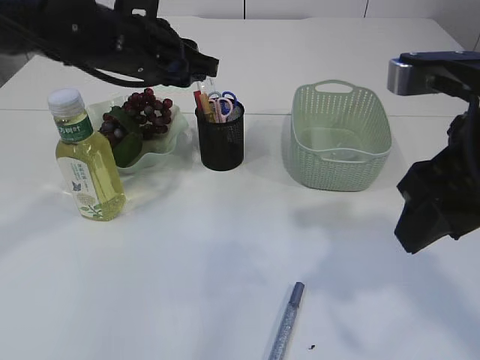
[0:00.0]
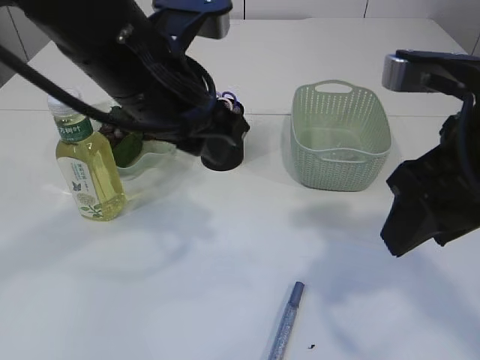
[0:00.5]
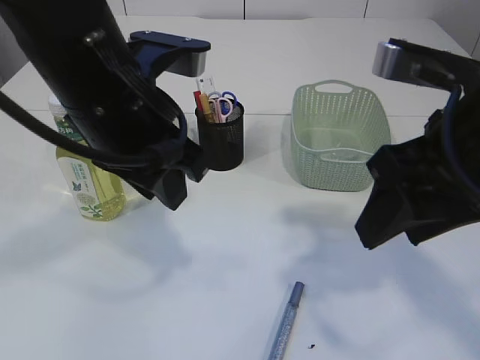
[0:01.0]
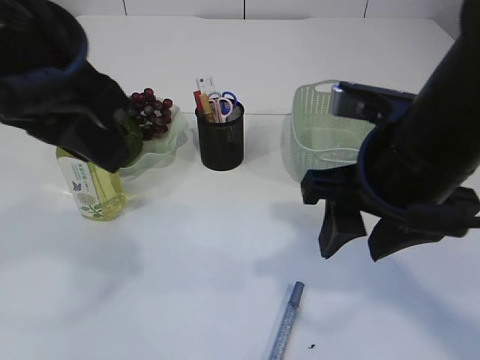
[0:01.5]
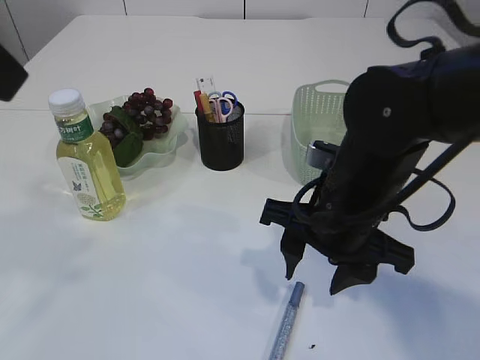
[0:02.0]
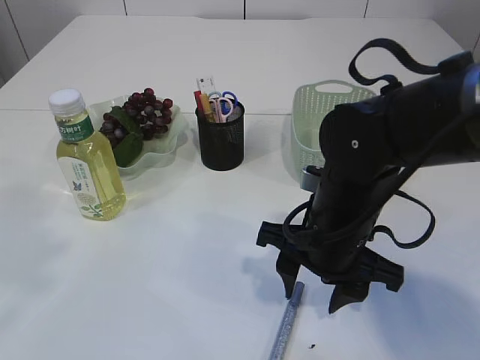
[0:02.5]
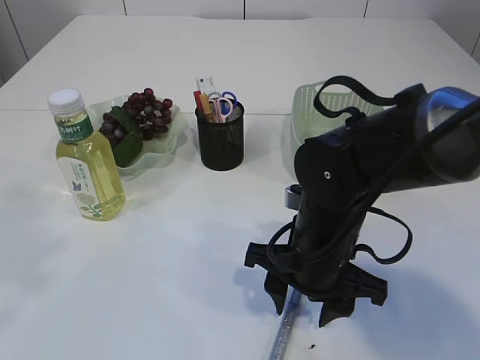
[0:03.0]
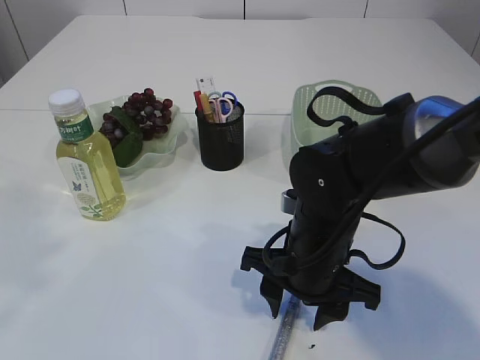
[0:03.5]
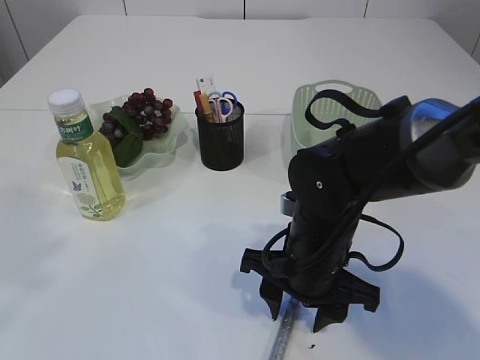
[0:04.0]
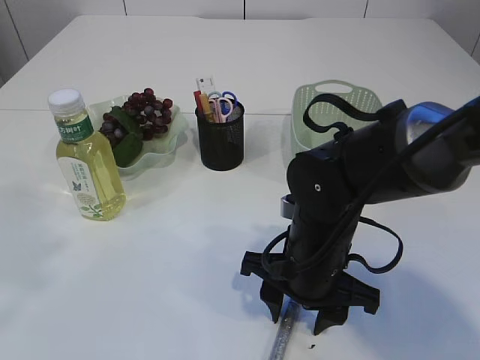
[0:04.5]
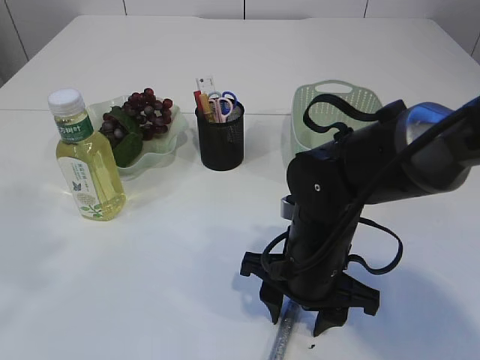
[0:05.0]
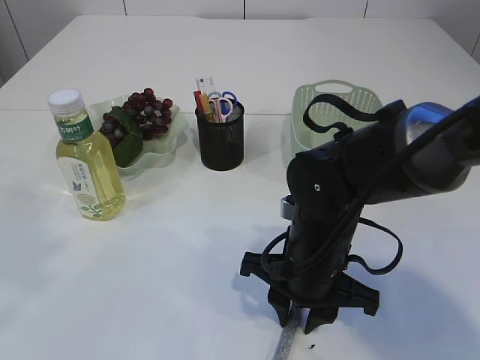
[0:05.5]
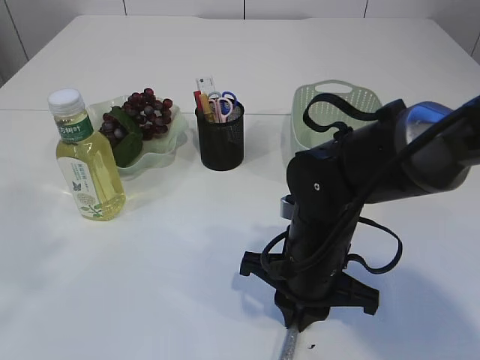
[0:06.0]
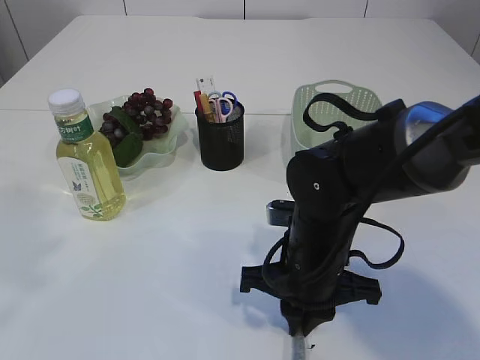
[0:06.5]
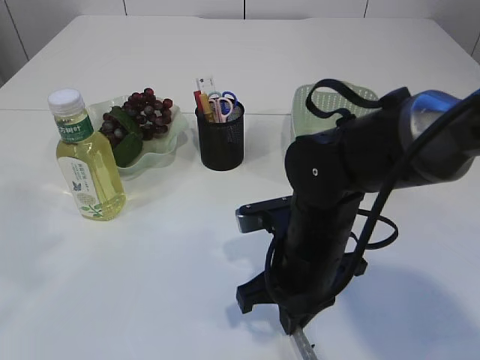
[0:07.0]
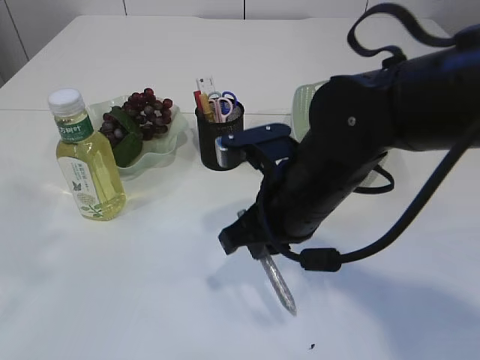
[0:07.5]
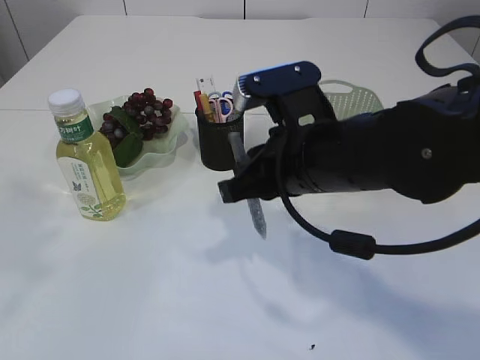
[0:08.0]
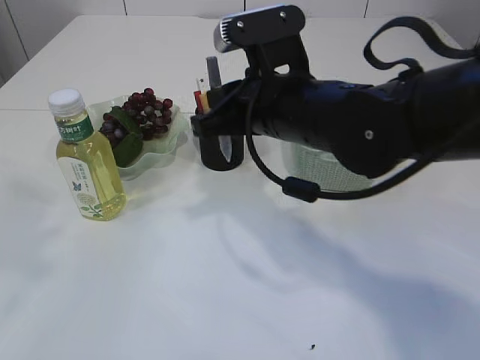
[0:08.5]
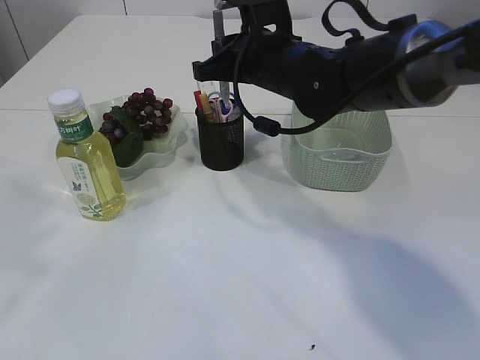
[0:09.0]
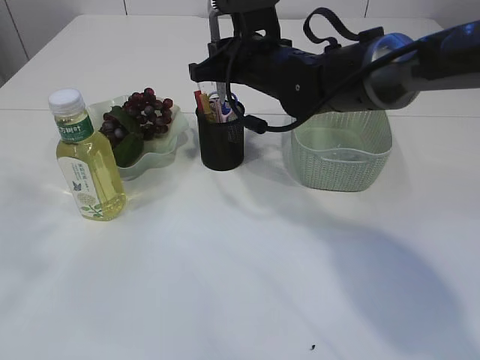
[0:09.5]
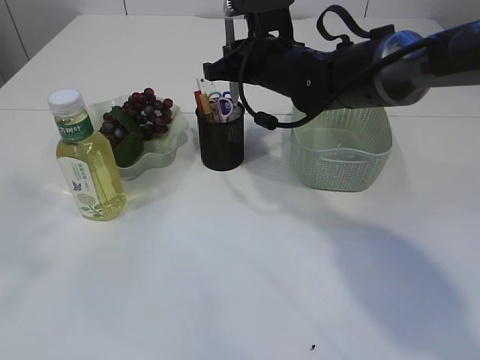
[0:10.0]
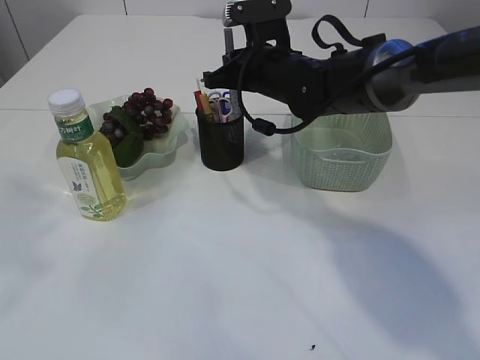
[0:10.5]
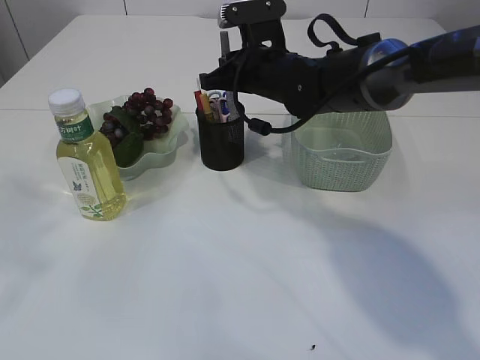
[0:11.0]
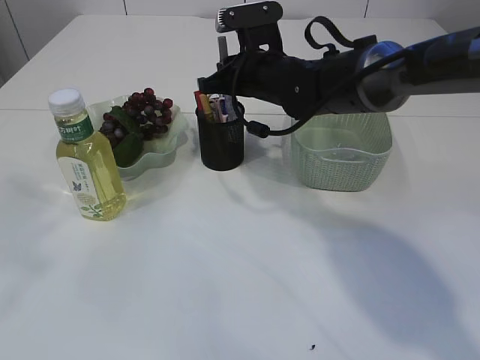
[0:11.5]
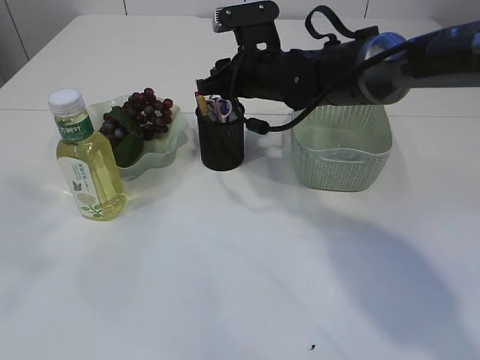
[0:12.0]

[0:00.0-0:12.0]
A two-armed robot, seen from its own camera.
Step, 0:00.5 to 0:07.0: pick up the silver glue.
0:00.0 to 0:02.0: The right gripper goes approximately 15 cm downward, to the left and forward. The left gripper heads backward and upward, covering some 30 cm.
0:02.0 to 0:04.0: The right gripper heads downward, covering about 5 cm.
0:04.0 to 0:06.0: The right gripper closes its fingers.
0:06.0 to 0:08.0: The right gripper goes some 10 cm upward.
0:08.0 to 0:10.0: The right gripper moves forward, about 20 cm.
0:10.0 to 0:12.0: The right gripper opens up.

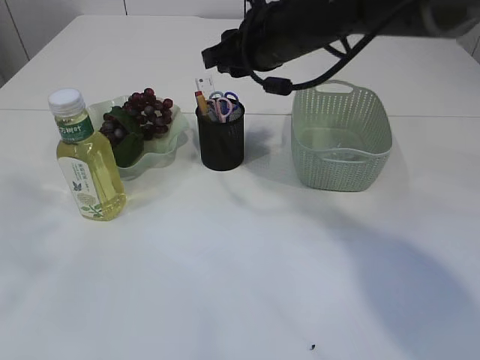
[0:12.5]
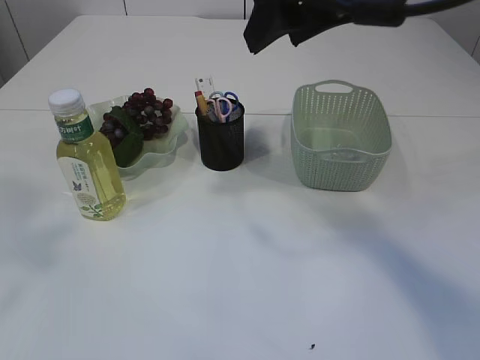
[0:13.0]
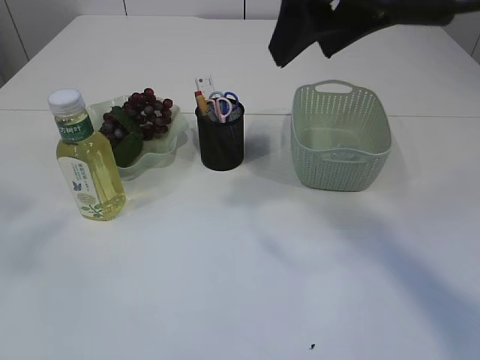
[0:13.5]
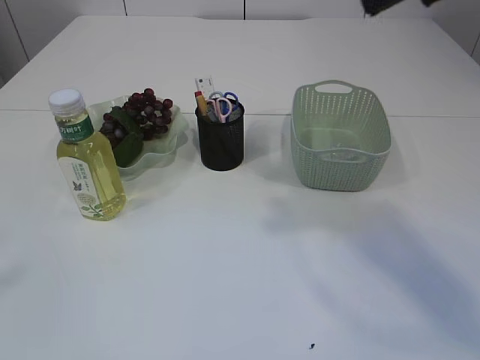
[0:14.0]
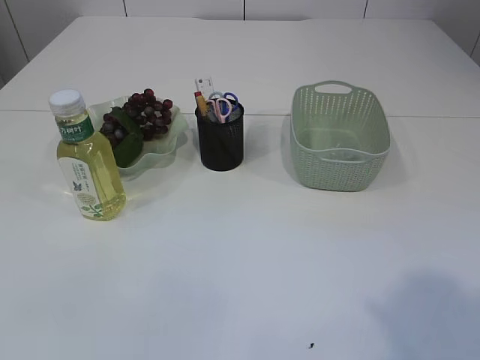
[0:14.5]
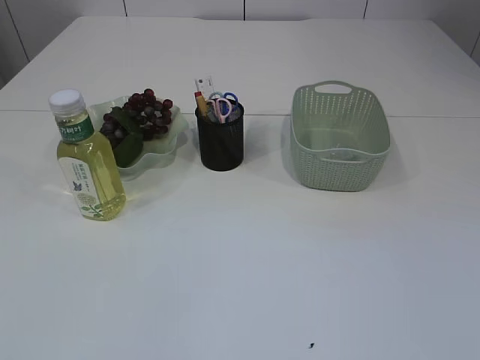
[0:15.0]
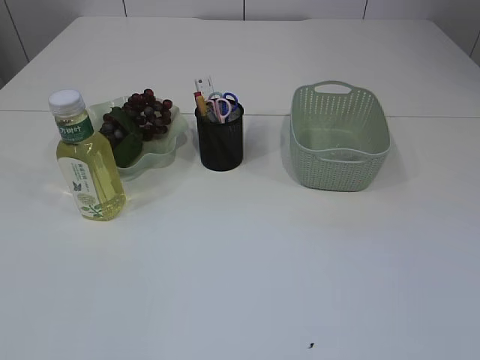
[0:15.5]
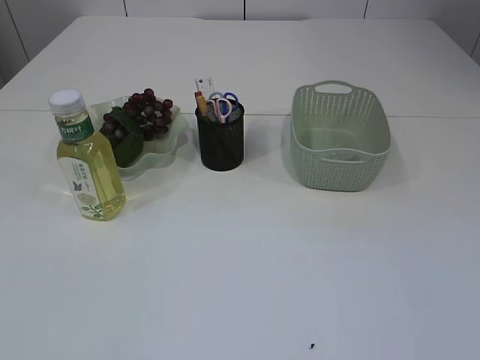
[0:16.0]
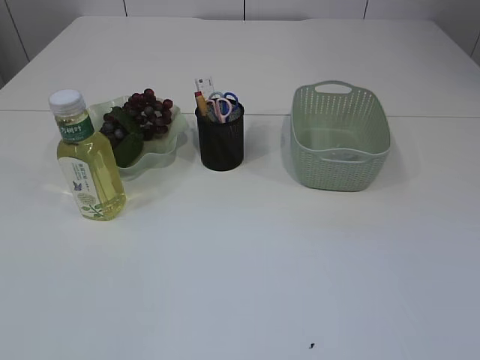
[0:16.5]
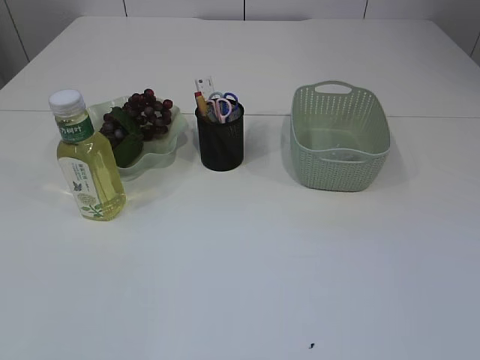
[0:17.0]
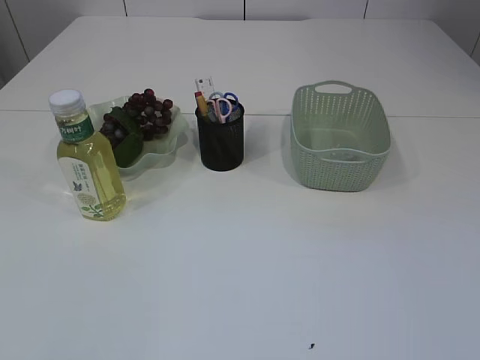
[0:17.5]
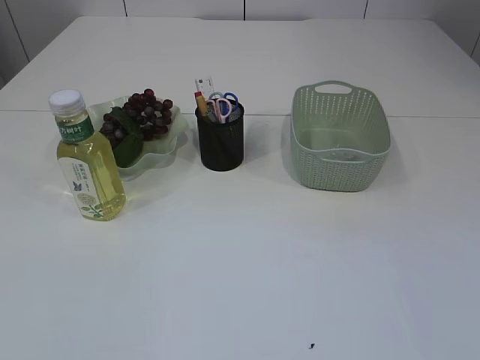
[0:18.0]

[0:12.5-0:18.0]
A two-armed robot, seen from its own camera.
0:12.5 to 0:14.5: The left gripper shifts some 15 cm backward and to the left, and opens its fingers. Meanwhile the right gripper goes roughly 40 cm backward and to the right, and opens its fingers.

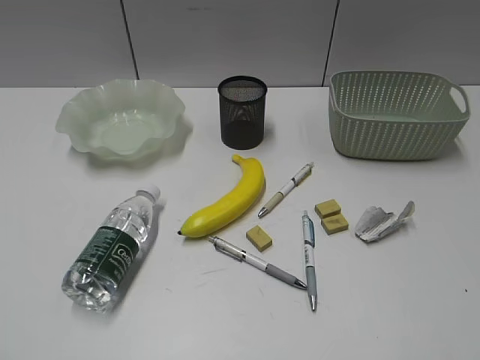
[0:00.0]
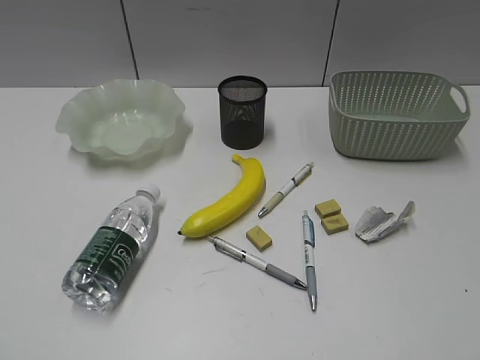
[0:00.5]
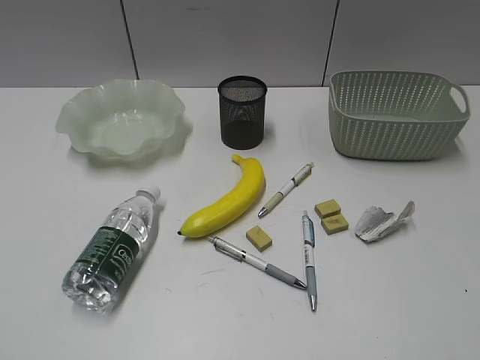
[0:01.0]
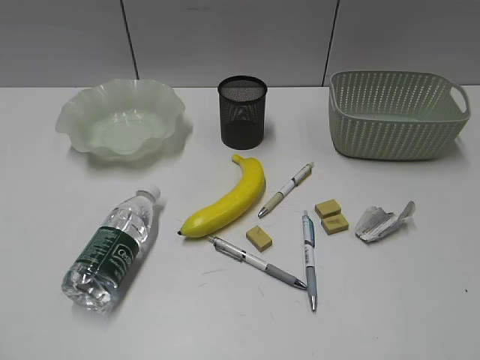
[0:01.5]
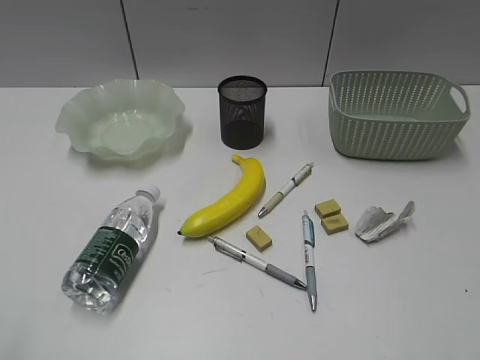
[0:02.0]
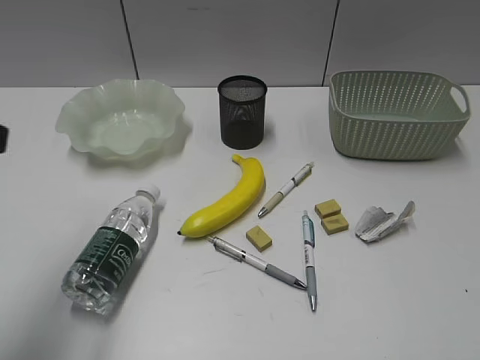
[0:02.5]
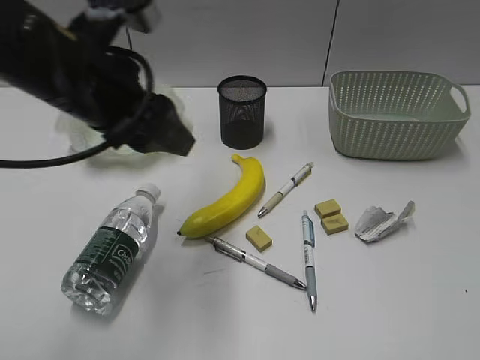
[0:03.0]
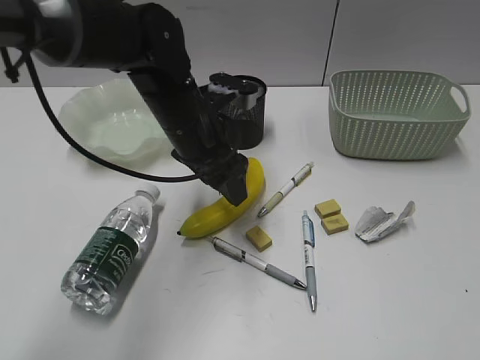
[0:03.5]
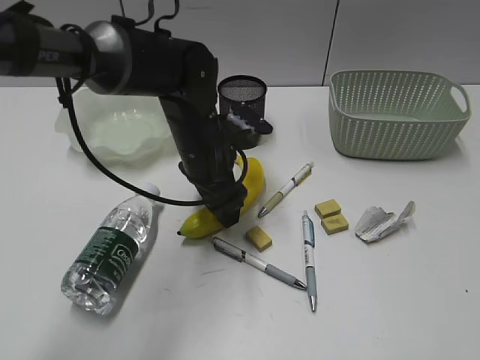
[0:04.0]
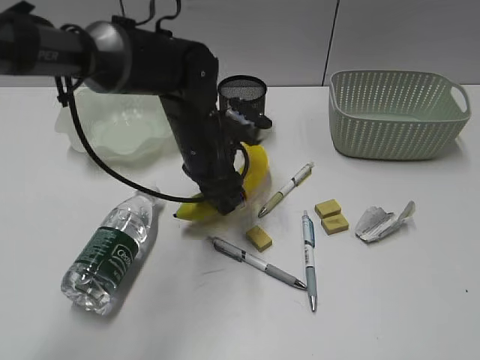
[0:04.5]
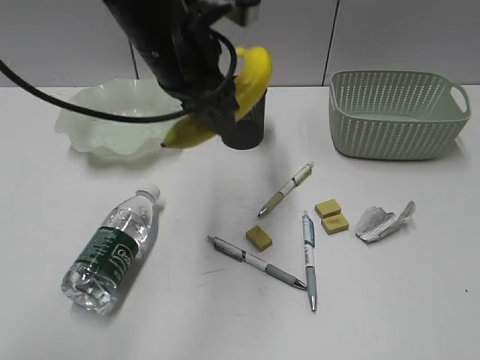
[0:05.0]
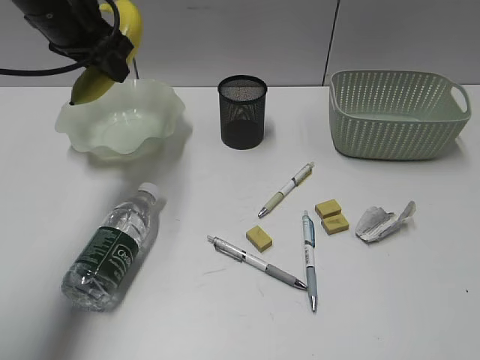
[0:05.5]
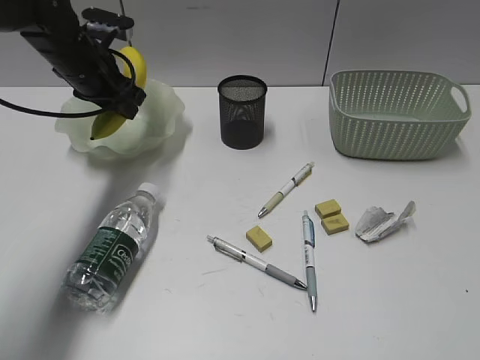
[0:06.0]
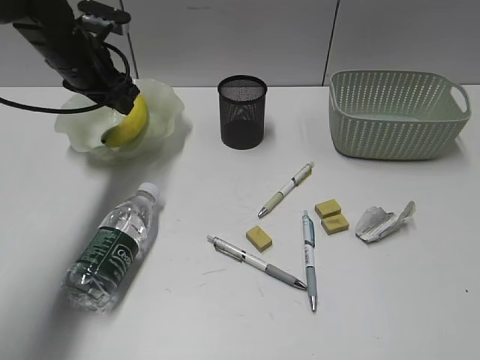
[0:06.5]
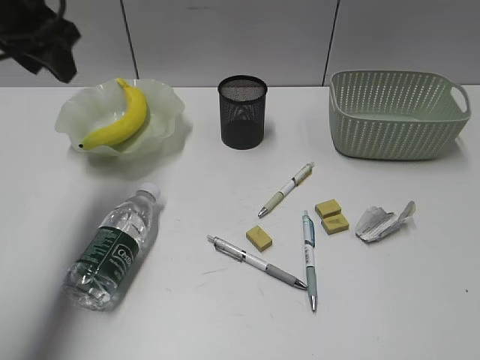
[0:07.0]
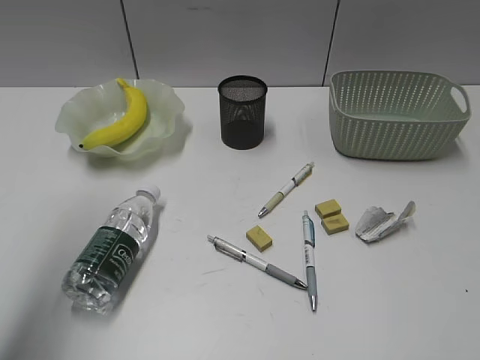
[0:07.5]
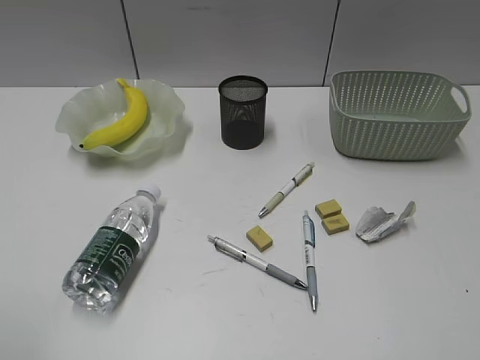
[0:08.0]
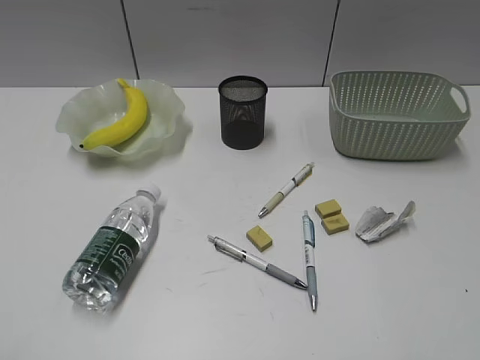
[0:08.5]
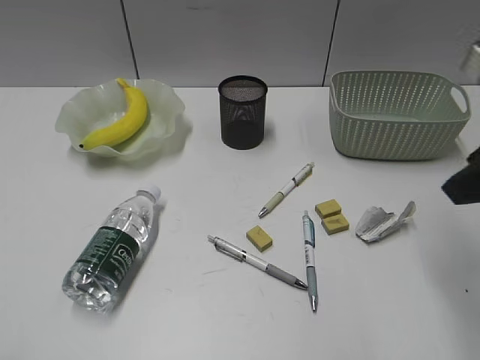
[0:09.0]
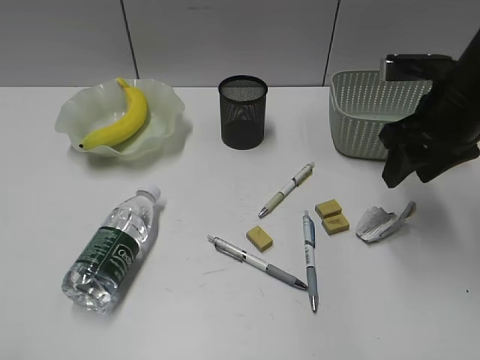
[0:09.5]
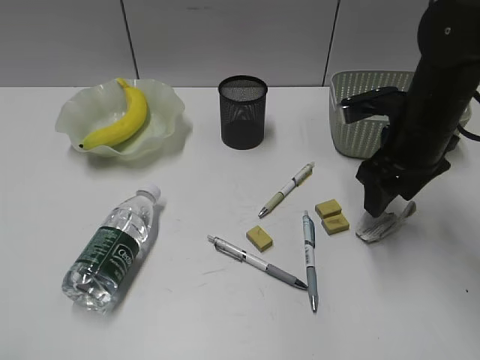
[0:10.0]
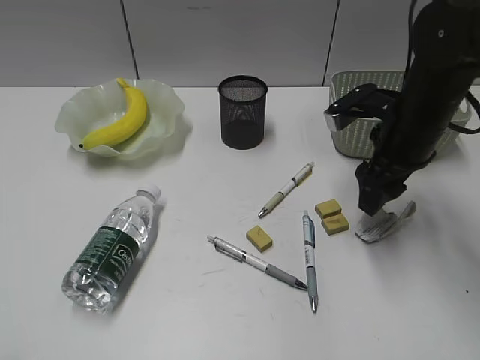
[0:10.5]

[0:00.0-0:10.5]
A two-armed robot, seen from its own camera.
Step, 0:02.0 to 0:04.0: Grasp the banana with left gripper.
Step, 0:04.5 to 0:06.5: Place the banana in the plate with left gripper.
0:02.0 to 0:04.0: The left gripper heads forward, to the right and downward, covering roughly 50 cm, and opens its fingers.
0:04.0 to 0:06.5: The left gripper travels to the left, forward and upward by roughly 20 cm.
0:06.5 to 0:08.5: The left gripper goes some 50 cm backward.
0:08.5 to 0:10.5: The right gripper heads forward and downward, covering about 30 cm.
